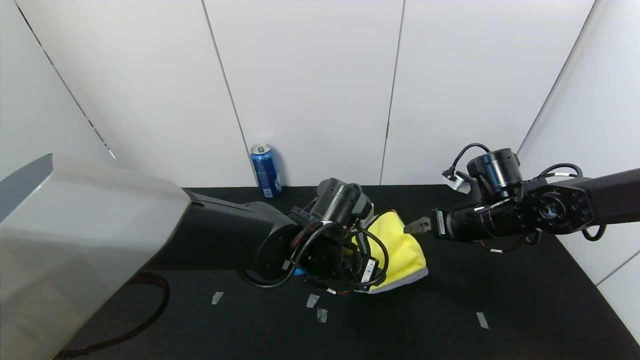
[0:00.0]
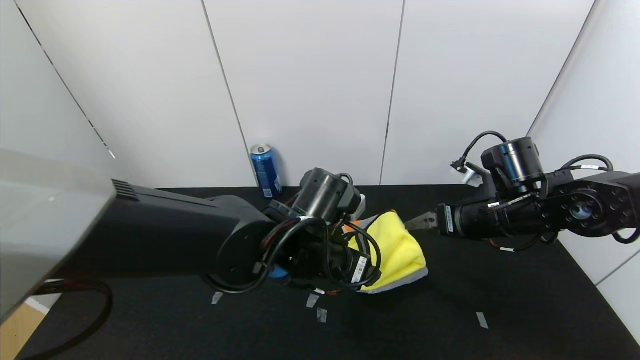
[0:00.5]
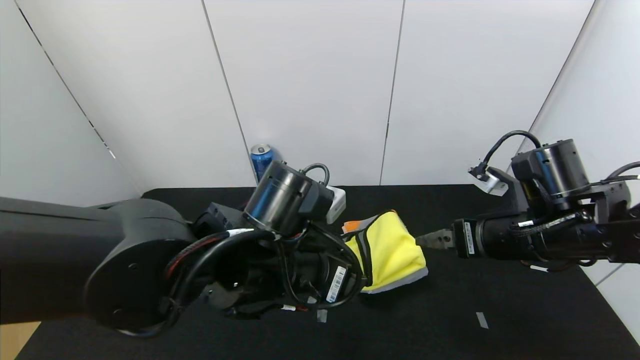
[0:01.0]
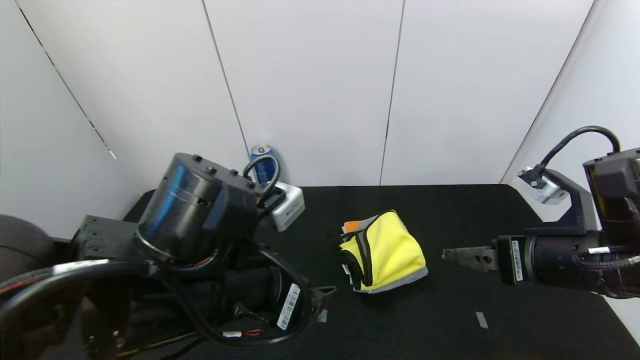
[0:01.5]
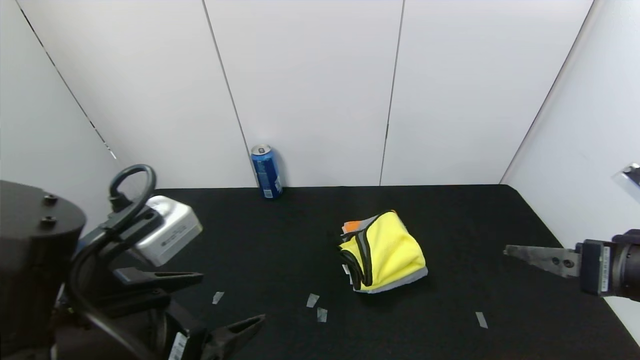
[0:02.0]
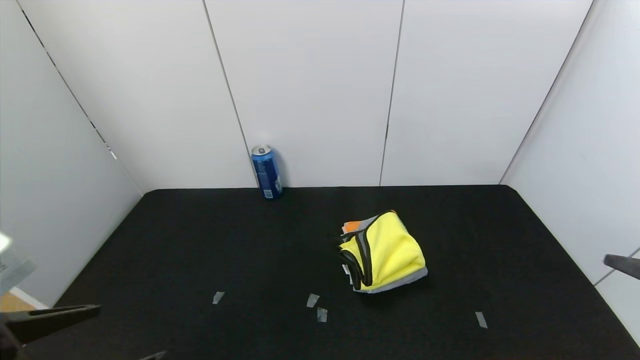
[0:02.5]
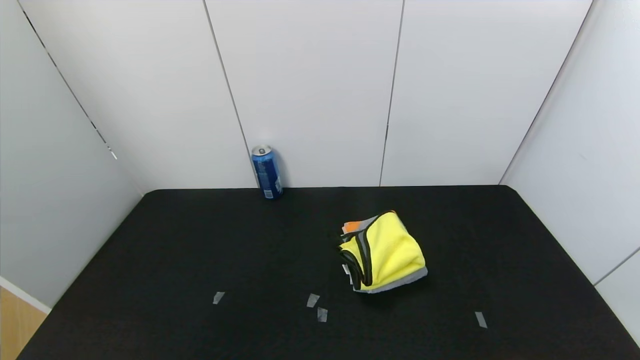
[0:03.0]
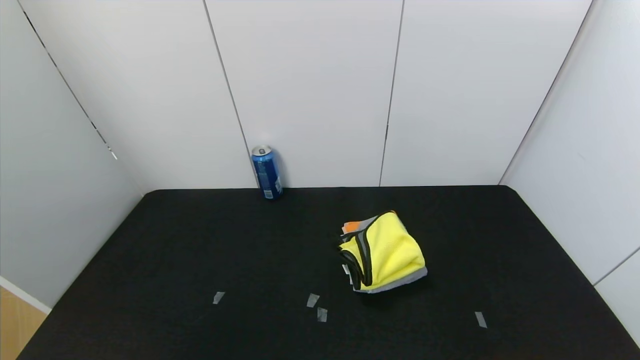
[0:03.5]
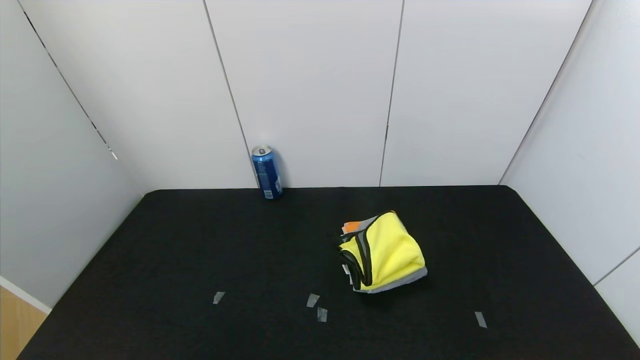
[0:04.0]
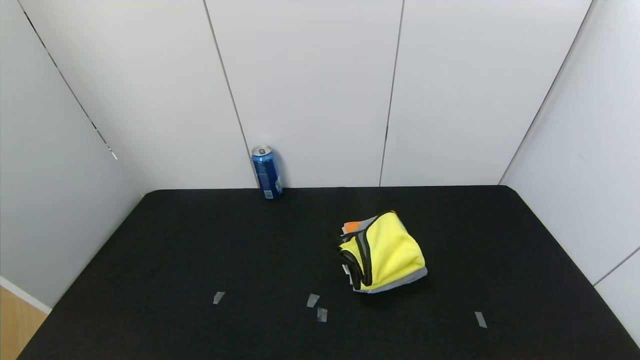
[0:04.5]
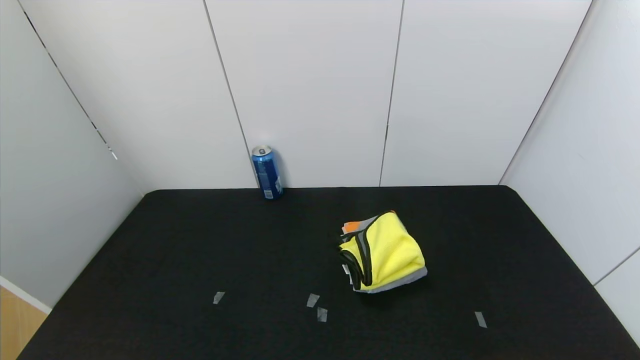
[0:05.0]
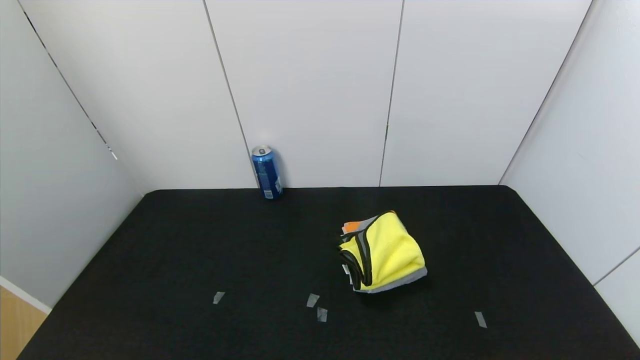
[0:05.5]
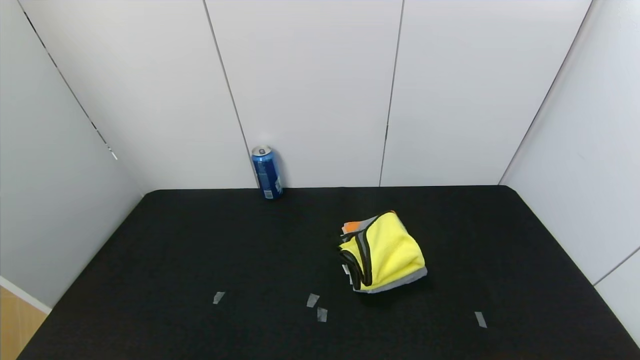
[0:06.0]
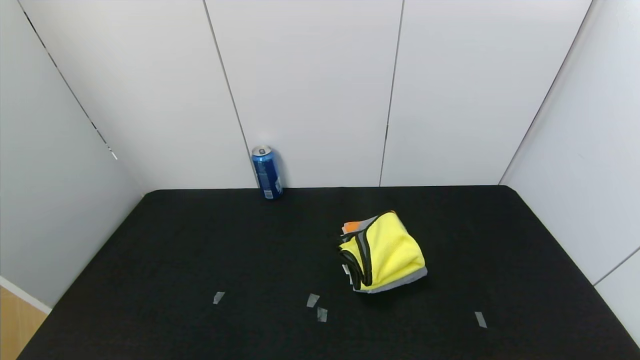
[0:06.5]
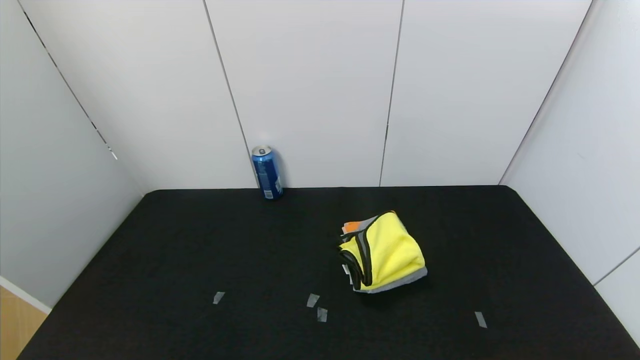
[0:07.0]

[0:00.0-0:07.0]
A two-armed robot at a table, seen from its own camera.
Task of the whole recording: Use the gripper to fold the yellow towel and grey towel in half twice,then put the yellow towel on the grey towel.
0:00.0 to 0:02.0: The right gripper shifts roughly 20 cm backward, while the left gripper travels backward, to the left and upward by about 25 cm.
0:02.0 to 0:03.5: The right gripper is displaced backward by roughly 20 cm. Meanwhile the left gripper shifts approximately 20 cm backward and to the left.
